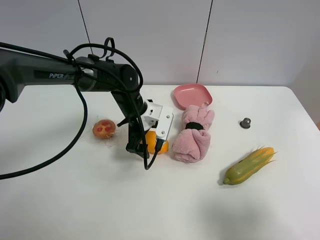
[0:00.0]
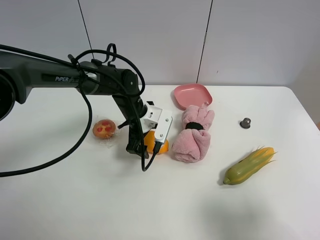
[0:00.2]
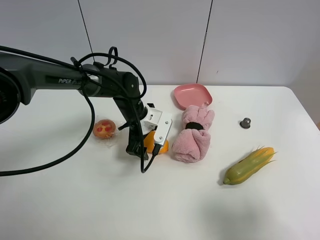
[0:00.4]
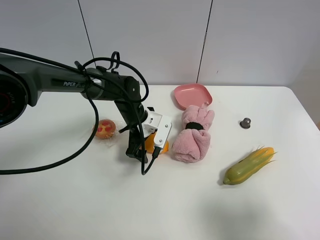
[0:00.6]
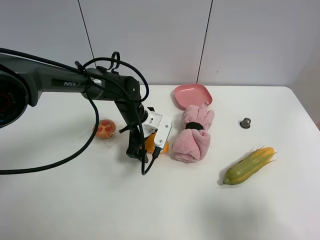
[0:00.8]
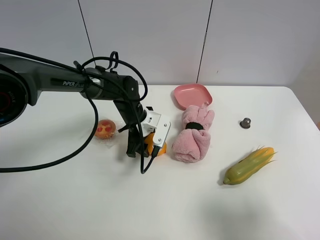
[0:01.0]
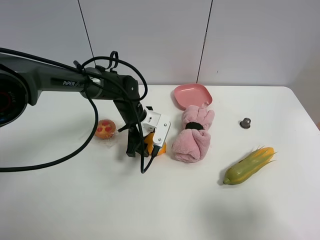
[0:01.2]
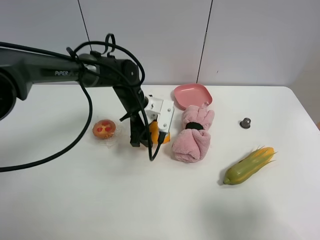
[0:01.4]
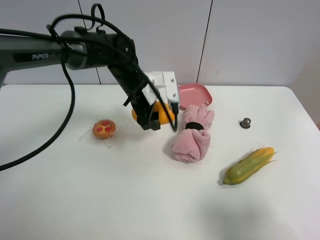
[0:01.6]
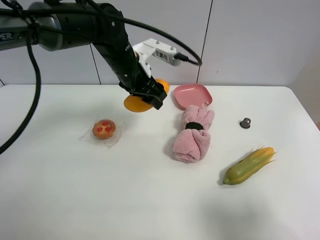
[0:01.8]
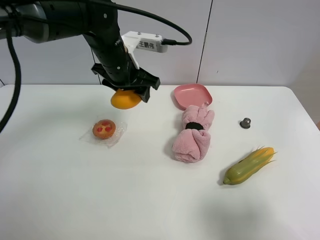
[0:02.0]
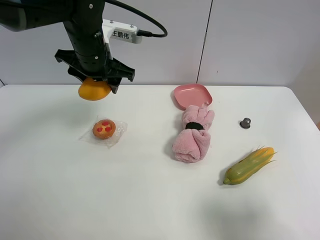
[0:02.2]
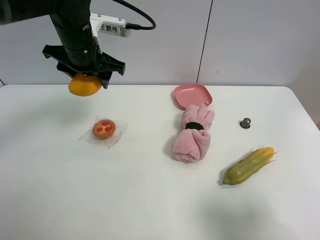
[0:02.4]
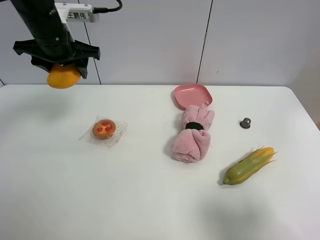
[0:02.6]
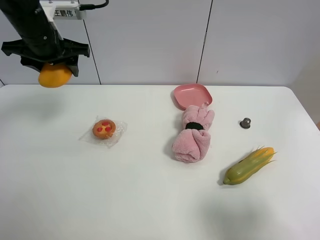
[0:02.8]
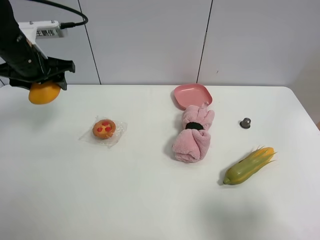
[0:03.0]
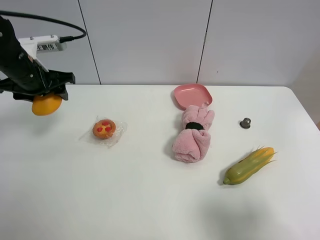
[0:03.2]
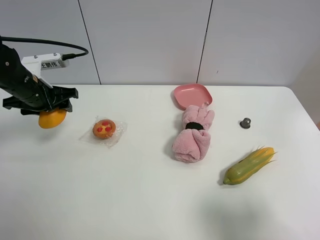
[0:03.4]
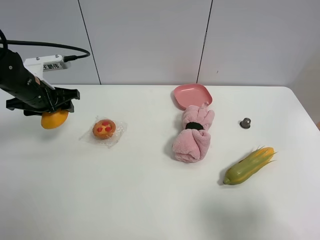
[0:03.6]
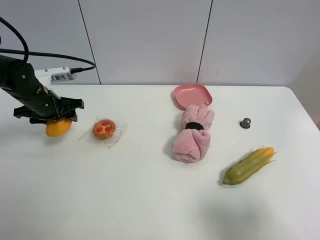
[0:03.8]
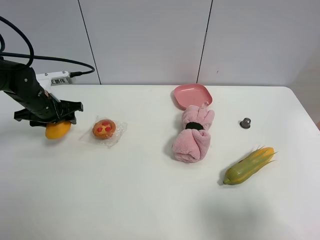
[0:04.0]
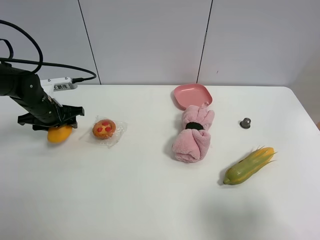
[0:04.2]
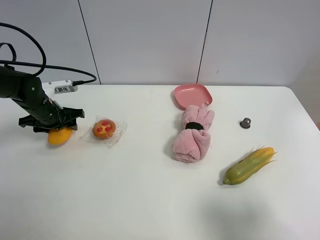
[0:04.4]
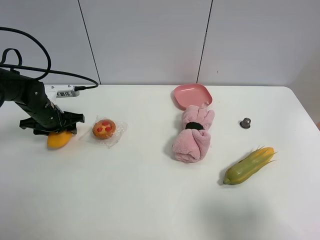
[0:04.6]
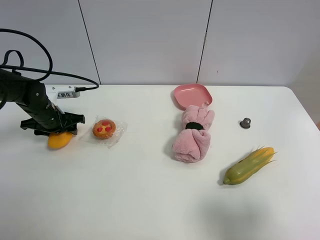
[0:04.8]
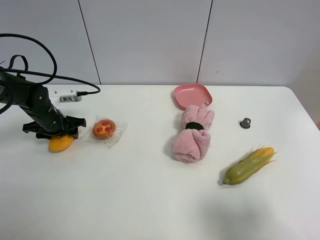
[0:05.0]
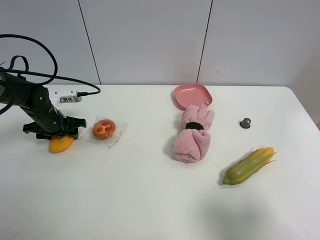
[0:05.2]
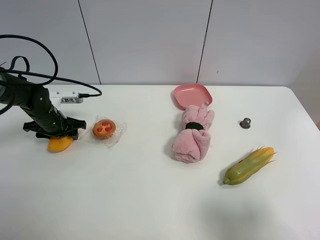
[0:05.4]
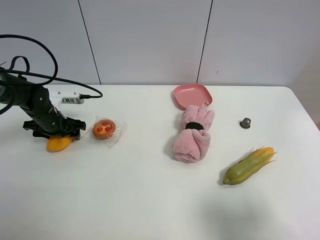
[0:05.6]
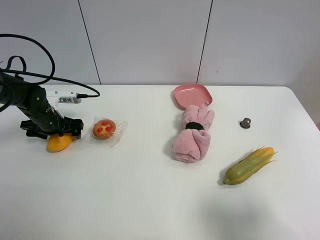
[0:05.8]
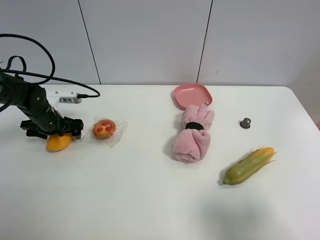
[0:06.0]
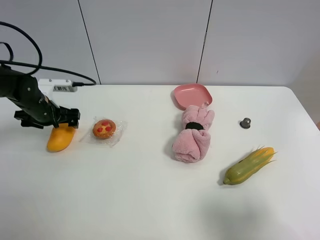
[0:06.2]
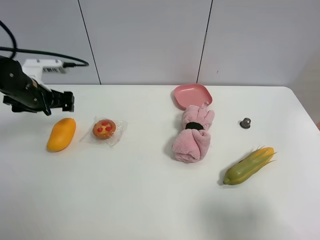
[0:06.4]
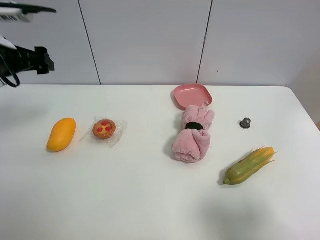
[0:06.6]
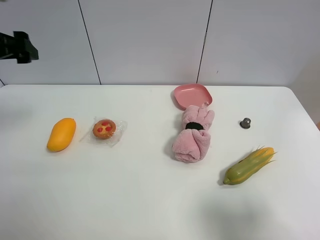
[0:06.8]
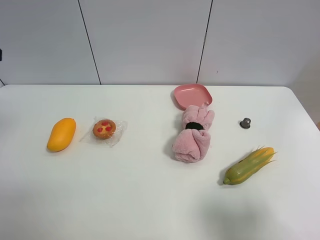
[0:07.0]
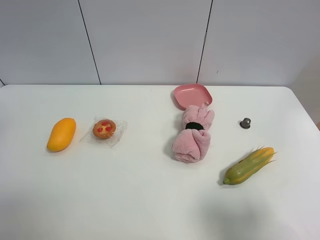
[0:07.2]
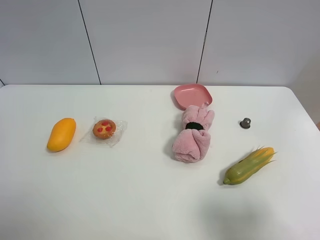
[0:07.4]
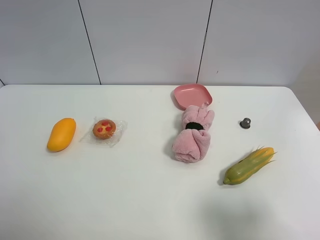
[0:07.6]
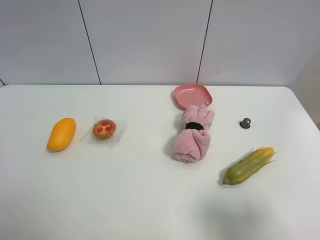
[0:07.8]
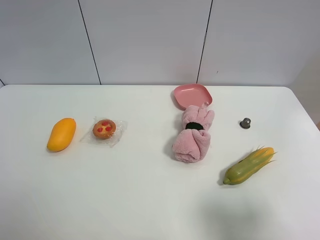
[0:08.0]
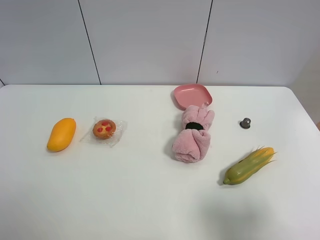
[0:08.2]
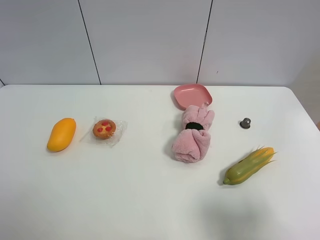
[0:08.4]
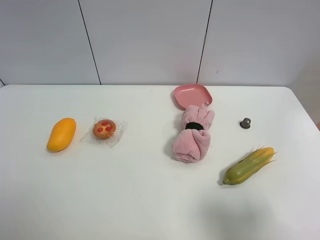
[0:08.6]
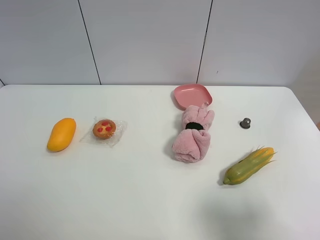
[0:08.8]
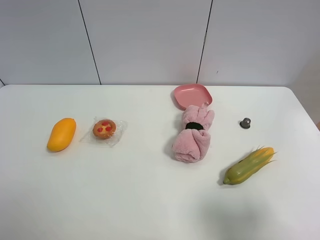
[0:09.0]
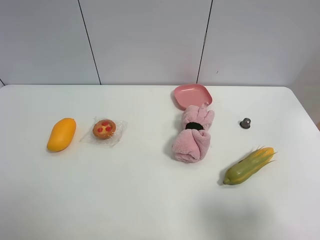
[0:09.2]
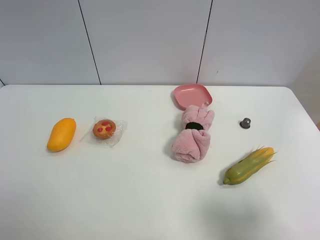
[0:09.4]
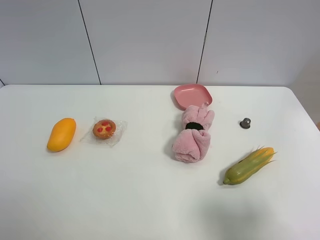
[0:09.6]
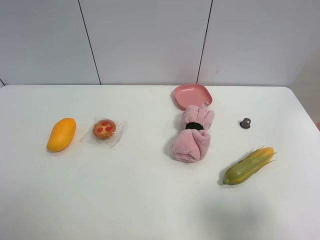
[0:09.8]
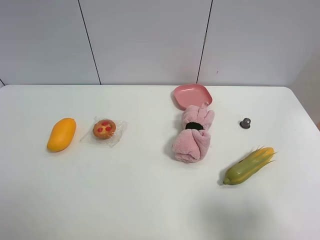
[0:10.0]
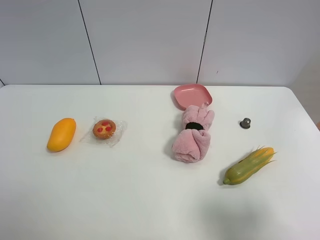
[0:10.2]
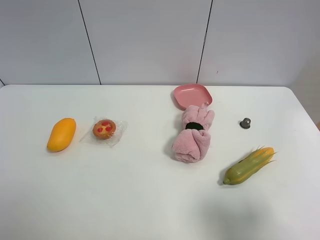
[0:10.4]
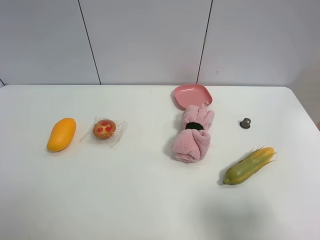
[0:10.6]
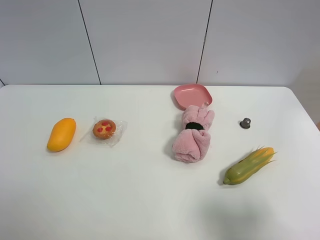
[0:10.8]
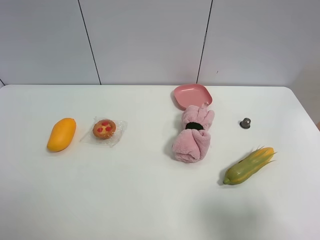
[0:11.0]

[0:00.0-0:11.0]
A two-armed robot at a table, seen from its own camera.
Task of the whole recording: the gripper move the object.
Step, 0:01.2 to 0:05.6: Place the mango on the table with the left gripper.
0:00.0 to 0:01.6: The left gripper travels upward by approximately 5 cm, and closes up.
0:01.6 to 0:03.2: The left gripper travels to the left by roughly 20 cm.
0:03.2 to 0:04.8: The left gripper goes some 15 cm downward.
0:04.8 to 0:06.2: The left gripper opens up.
0:06.2 to 0:07.8: The left gripper goes some 40 cm upward and backward.
0:09.4 to 0:11.0: Both grippers stay about where they are.

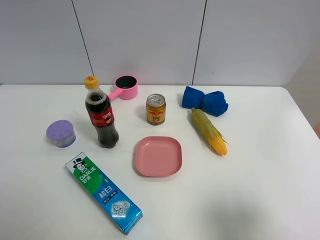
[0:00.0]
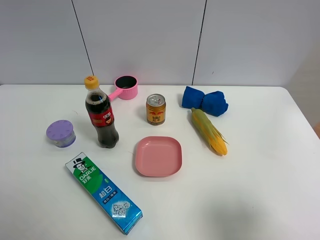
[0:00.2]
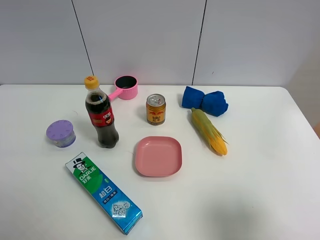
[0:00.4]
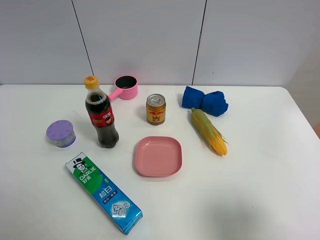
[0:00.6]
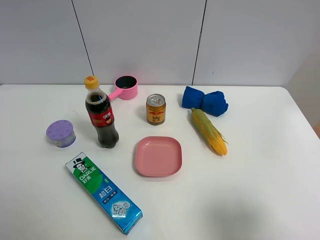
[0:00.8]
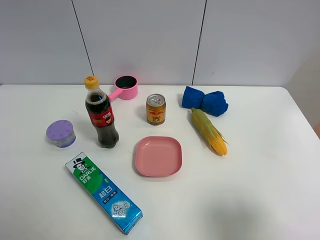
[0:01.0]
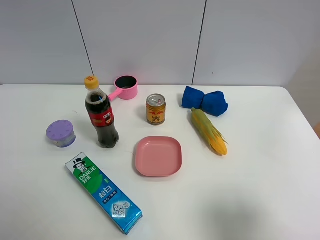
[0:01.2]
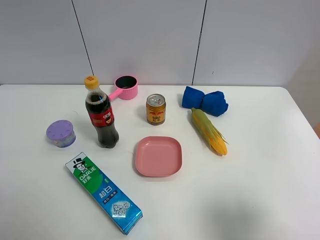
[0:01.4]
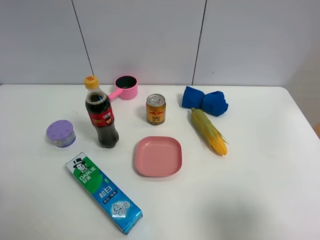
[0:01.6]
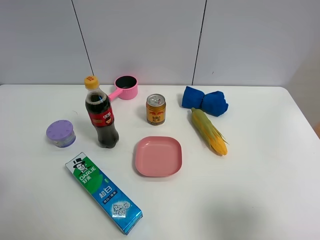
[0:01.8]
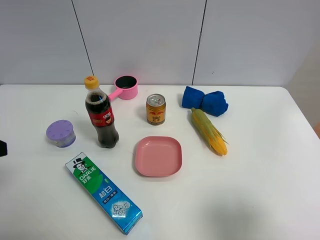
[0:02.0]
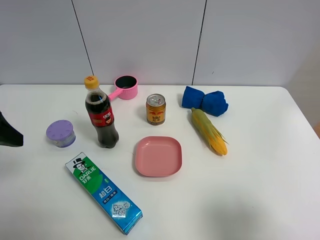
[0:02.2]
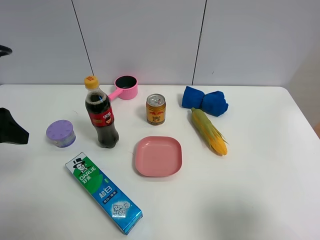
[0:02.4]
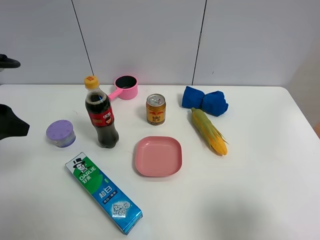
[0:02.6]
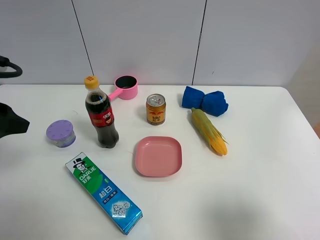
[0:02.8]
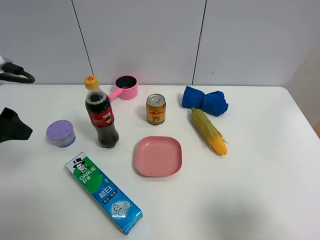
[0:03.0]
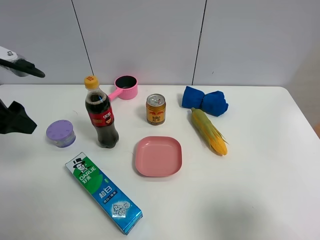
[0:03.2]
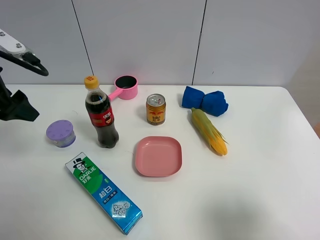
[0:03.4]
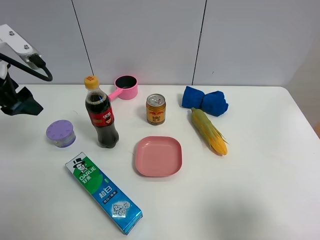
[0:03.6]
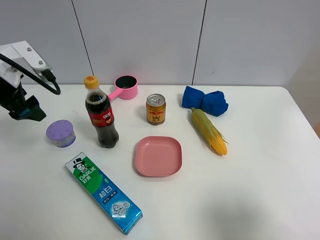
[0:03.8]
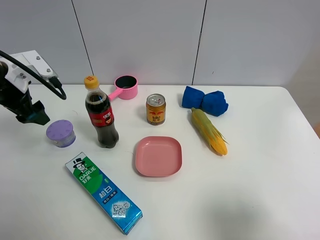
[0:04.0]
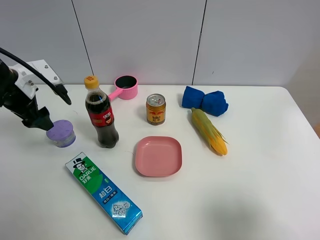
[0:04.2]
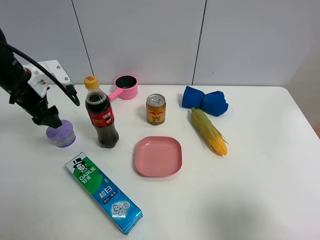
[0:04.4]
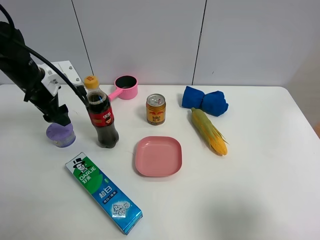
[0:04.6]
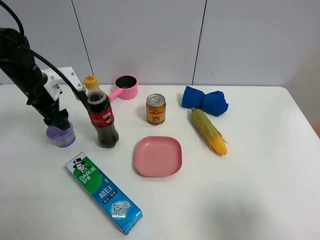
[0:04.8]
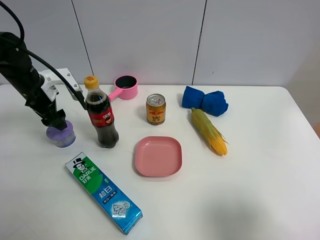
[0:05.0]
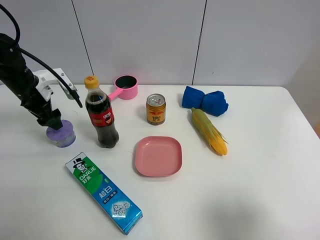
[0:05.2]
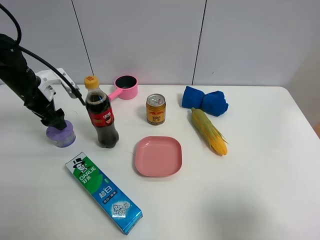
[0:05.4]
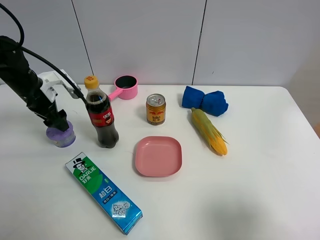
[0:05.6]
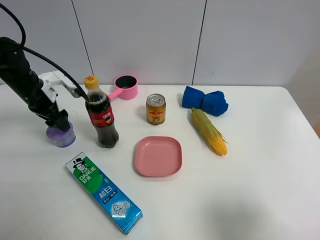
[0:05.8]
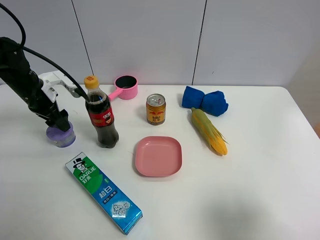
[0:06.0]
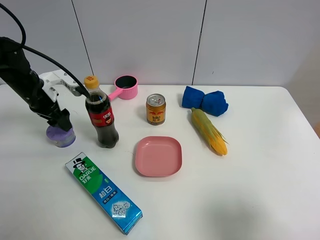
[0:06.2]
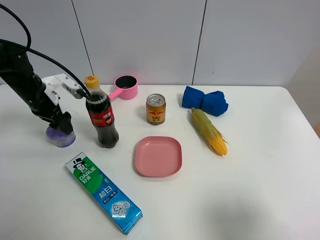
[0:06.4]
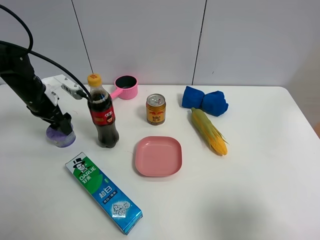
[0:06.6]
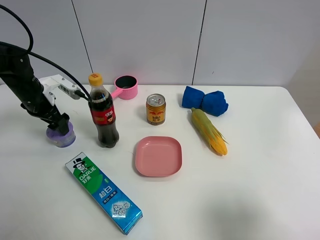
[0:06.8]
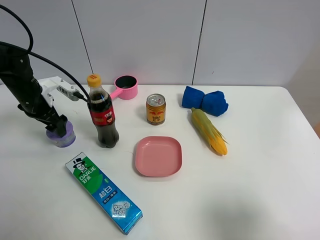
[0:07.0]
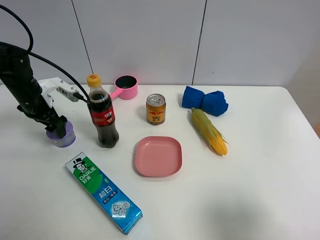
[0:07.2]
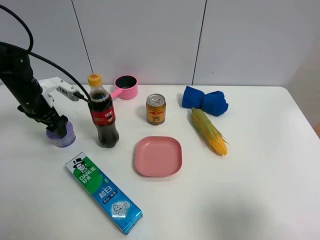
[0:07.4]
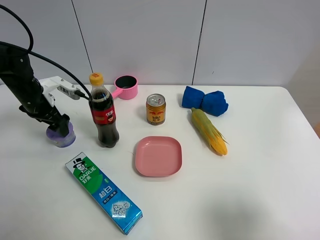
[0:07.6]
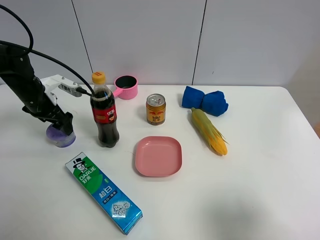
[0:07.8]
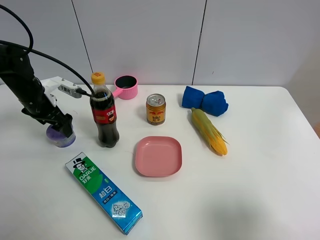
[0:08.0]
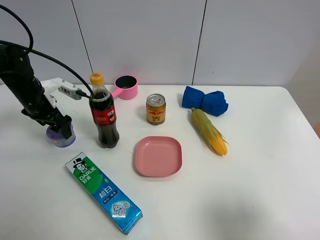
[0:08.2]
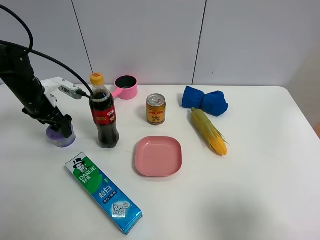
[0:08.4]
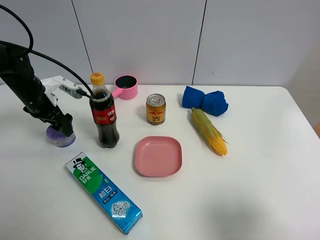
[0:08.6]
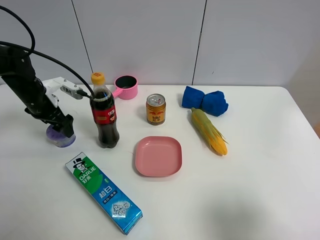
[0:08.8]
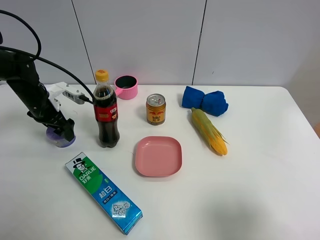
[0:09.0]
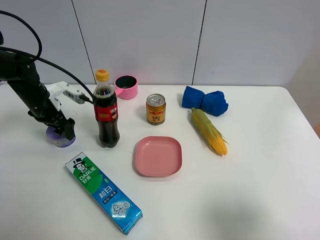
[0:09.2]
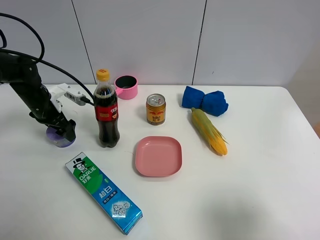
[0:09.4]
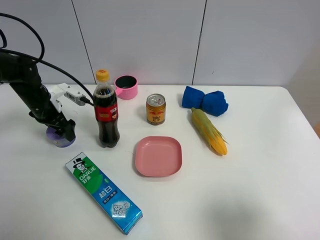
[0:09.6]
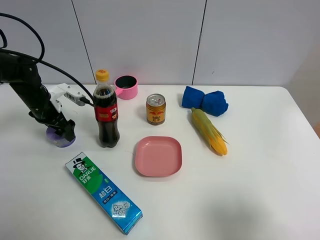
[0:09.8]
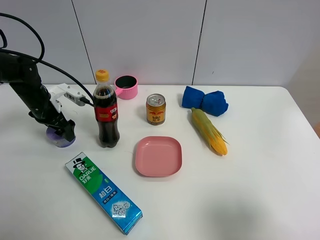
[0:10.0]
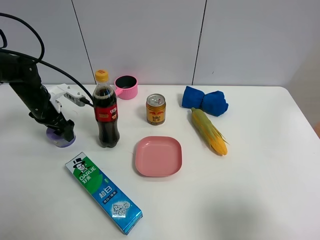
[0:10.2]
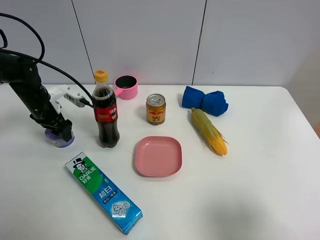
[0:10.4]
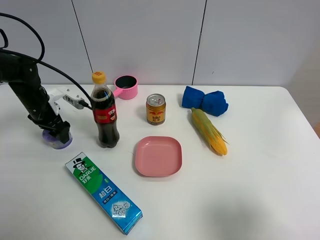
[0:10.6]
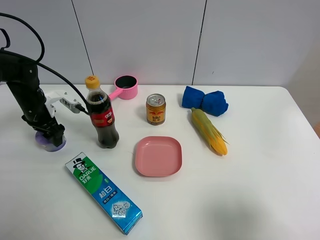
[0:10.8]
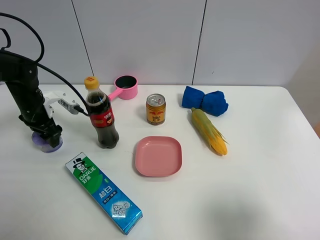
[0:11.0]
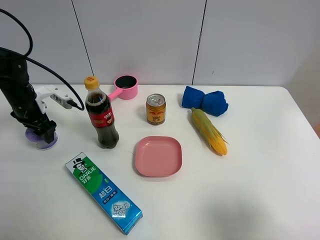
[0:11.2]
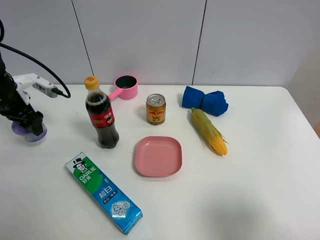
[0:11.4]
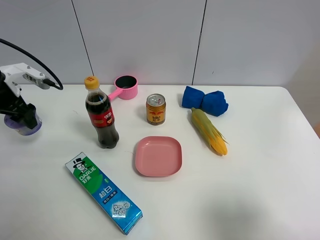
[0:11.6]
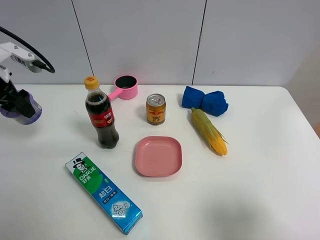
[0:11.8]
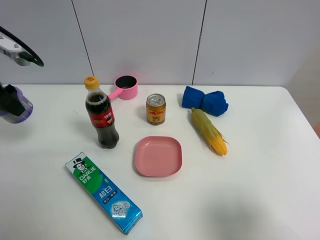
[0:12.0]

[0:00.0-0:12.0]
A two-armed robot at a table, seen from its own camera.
Task of the whole recording: the gripper move the object.
Step, 0:00.0 to 0:10.4: Grasp the Incense box with the left gripper.
0:01.6 to 0:03.0: The left gripper shifts roughly 20 cm forward.
0:03.0 to 0:04.4: The left gripper travels forward and downward by some 15 cm.
0:04.4 to 0:06.0: The left gripper changes place by roughly 5 cm.
0:06.0 to 0:07.6: The left gripper opens up.
0:07.6 to 0:09.0: There are only small adjustments of the grippers.
0:09.0 to 0:10.4: The left gripper closes.
0:10.4 to 0:12.0: The left gripper moves upward and backward, approximately 20 cm.
